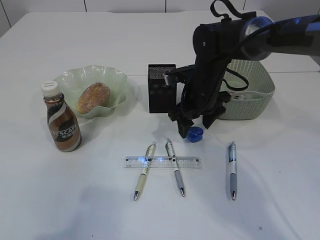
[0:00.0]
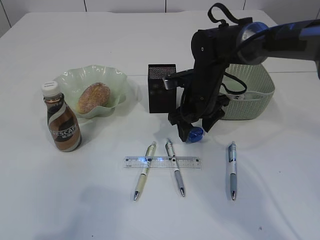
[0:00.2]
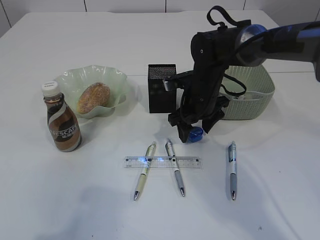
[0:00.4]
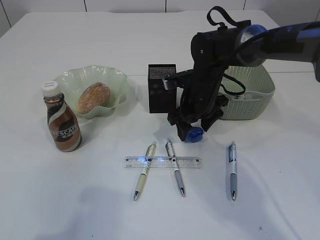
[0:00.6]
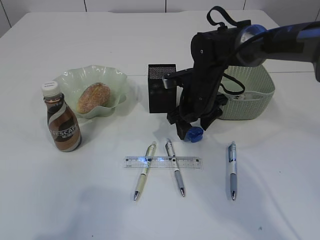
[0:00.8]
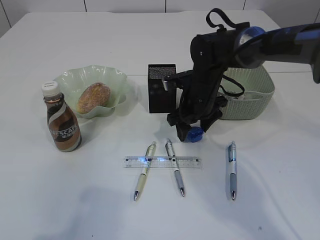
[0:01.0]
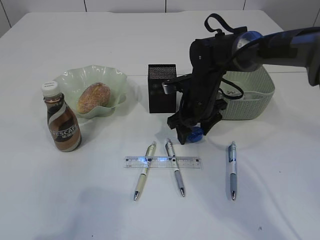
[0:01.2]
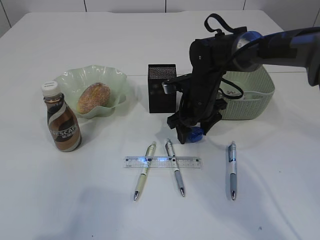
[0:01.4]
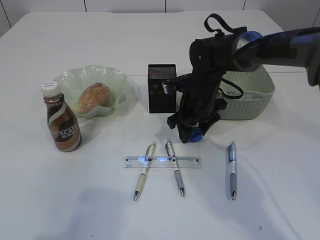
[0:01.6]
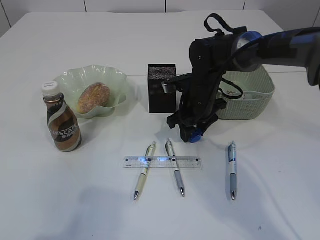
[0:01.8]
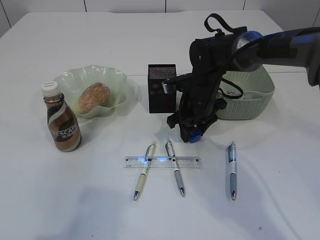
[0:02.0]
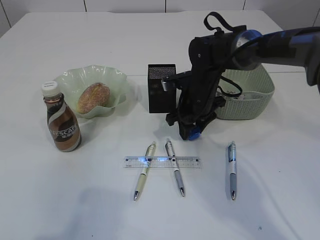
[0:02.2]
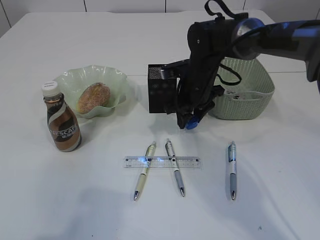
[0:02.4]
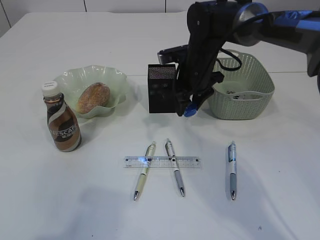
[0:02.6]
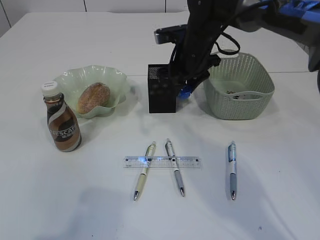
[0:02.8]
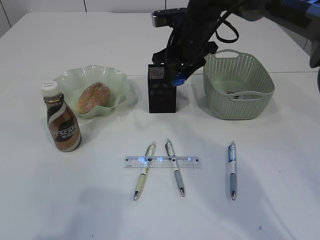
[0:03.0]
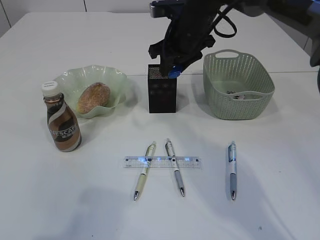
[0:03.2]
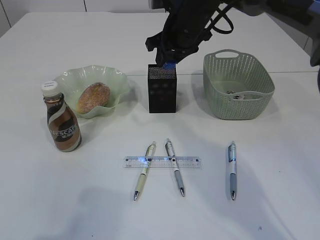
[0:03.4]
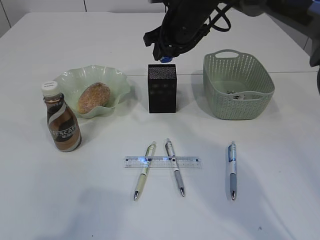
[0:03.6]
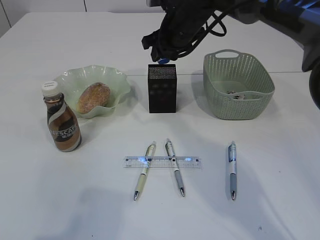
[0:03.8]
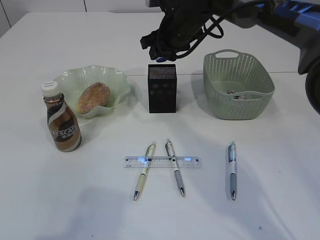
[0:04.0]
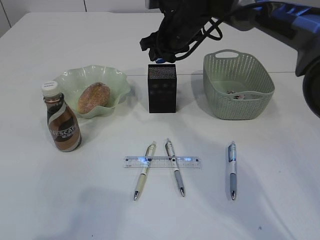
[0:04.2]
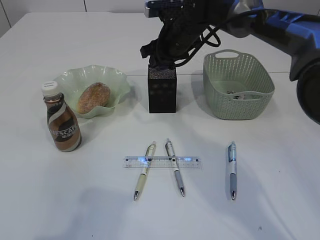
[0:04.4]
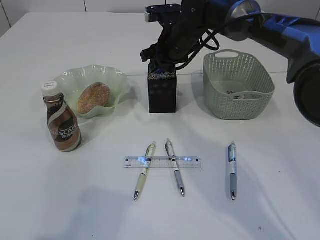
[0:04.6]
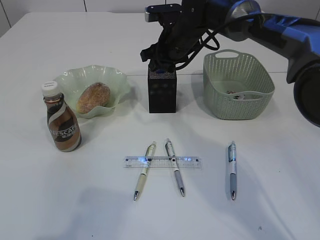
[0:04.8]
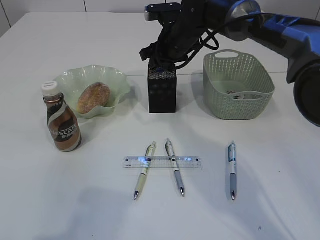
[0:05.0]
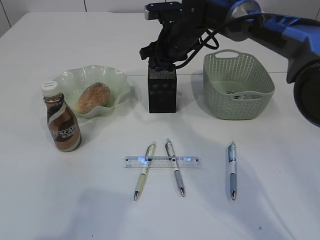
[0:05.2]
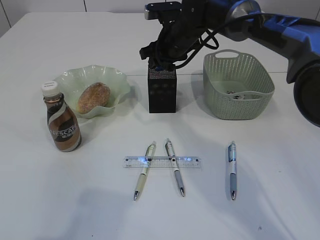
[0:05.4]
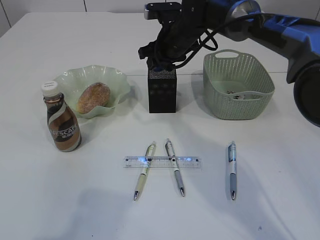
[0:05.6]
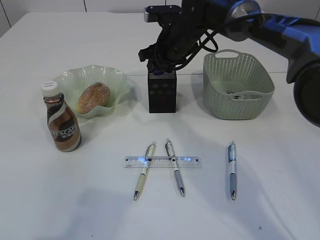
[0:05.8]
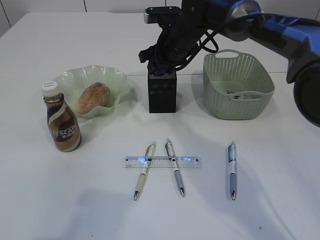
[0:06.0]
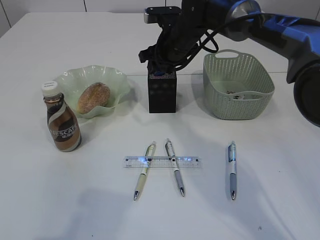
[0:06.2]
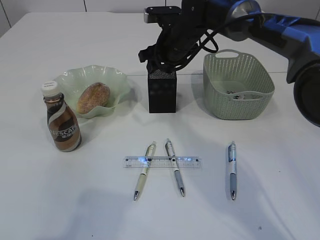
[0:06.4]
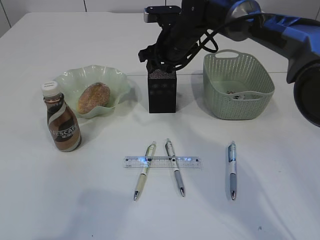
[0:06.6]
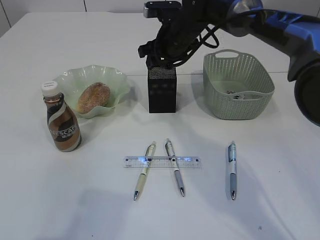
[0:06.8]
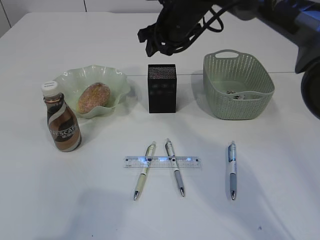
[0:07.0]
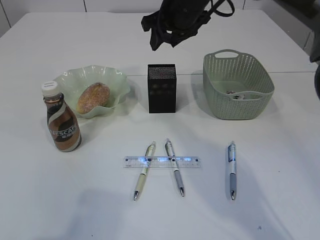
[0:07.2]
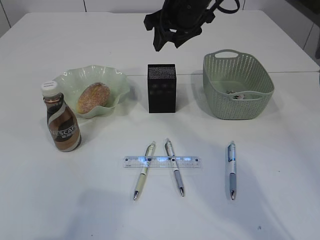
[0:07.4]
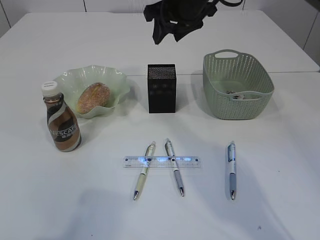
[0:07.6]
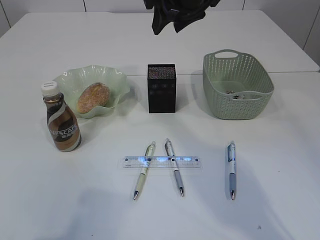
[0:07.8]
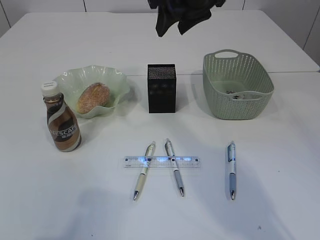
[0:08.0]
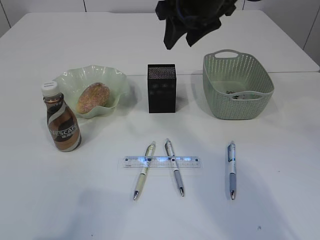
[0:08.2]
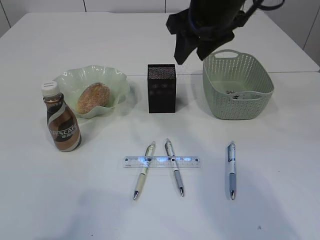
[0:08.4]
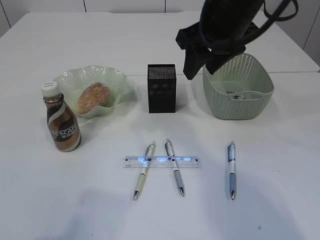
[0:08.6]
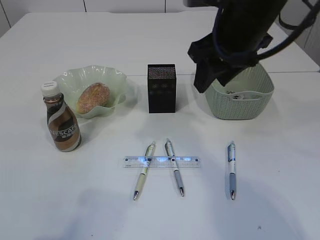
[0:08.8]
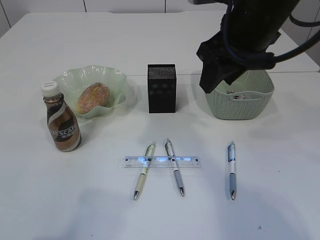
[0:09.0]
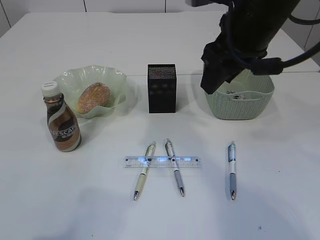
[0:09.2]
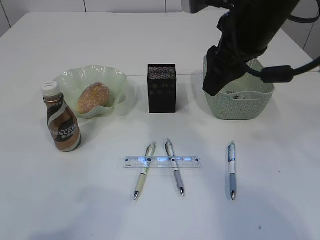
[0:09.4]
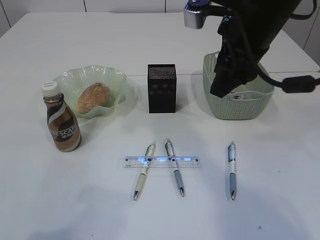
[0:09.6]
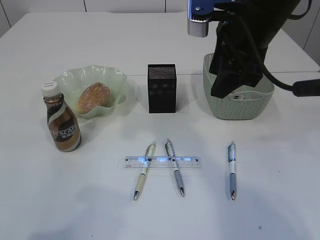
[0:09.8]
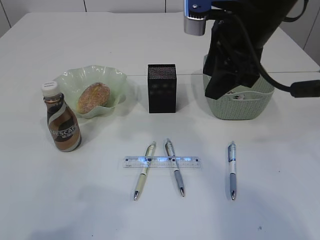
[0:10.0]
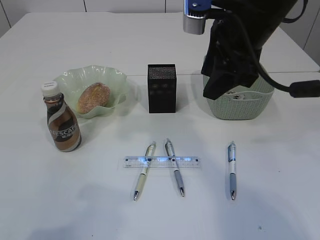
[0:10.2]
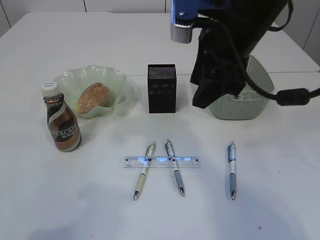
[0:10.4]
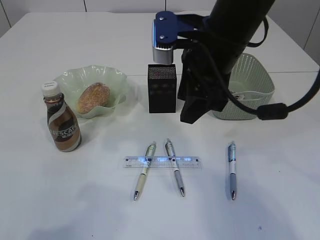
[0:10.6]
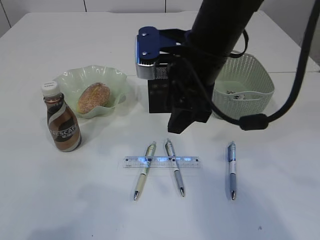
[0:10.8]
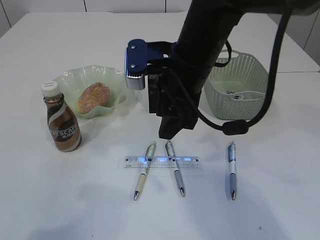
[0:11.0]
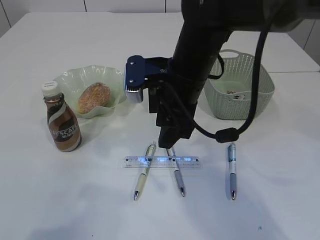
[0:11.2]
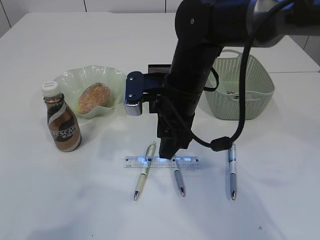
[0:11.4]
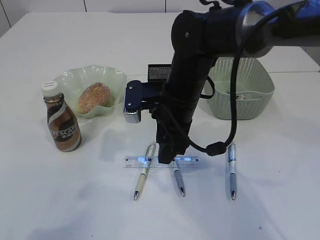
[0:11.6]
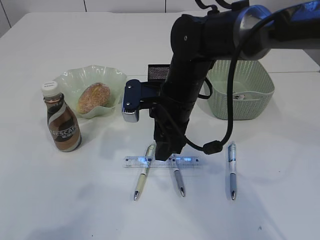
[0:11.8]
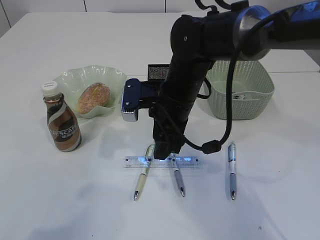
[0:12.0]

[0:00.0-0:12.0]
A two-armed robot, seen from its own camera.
Step, 0:00.0 to 0:02.6: Pick up the blue pencil sharpener.
Step, 0:00.0 to 0:07.2: Place the blue pencil sharpener into the pen holder.
0:00.0 to 0:01.6: The grippers make only small movements.
0:01.6 to 0:03.0: The right gripper travels upward by approximately 10 cm.
0:04.4 to 0:06.0: Both grippers stay put.
0:06.0 to 0:07.6: The right gripper travels upward by approximately 10 cm.
0:07.6 to 0:09.0: The right gripper heads backward, covering about 15 cm.
0:10.4 to 0:12.0: The right gripper heads downward and to the left, covering approximately 15 cm.

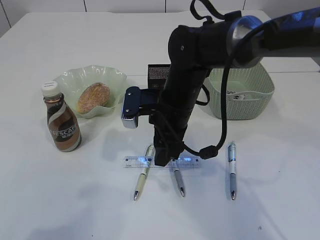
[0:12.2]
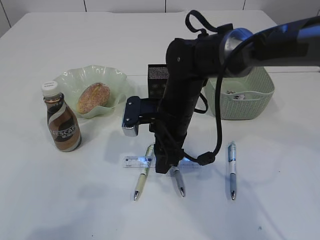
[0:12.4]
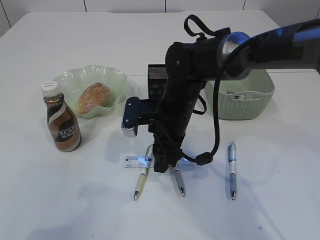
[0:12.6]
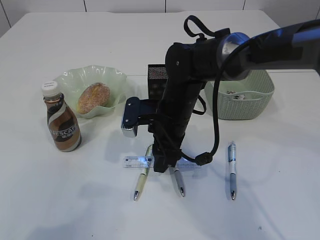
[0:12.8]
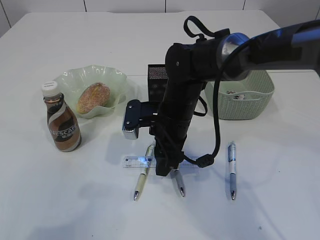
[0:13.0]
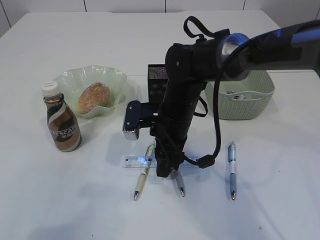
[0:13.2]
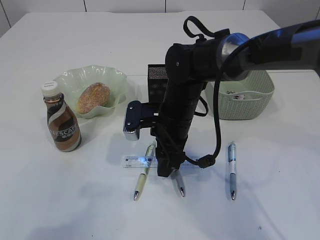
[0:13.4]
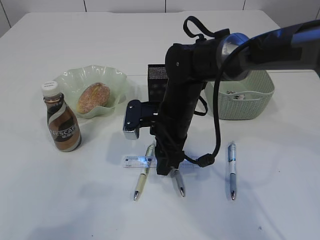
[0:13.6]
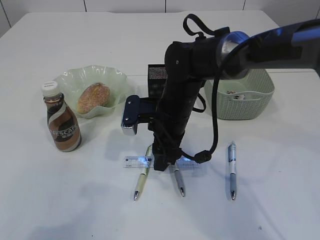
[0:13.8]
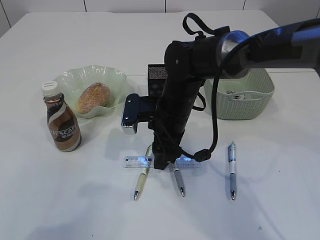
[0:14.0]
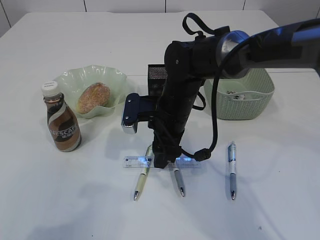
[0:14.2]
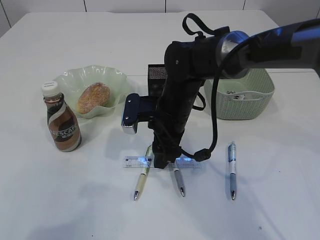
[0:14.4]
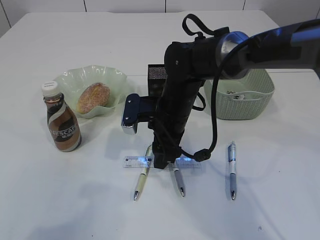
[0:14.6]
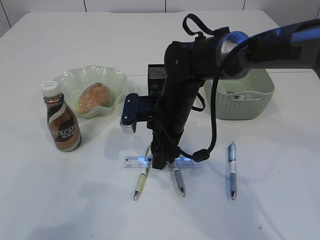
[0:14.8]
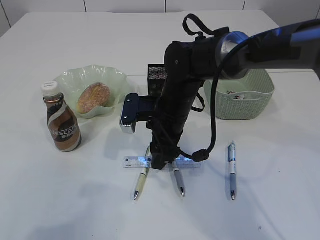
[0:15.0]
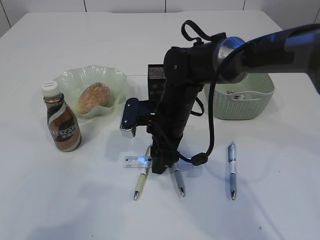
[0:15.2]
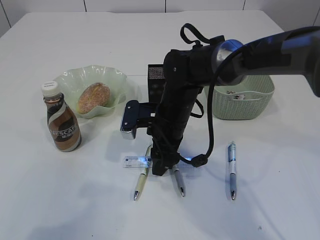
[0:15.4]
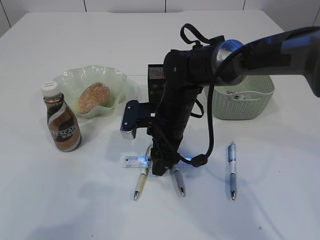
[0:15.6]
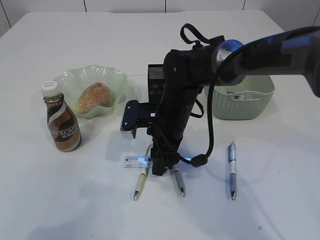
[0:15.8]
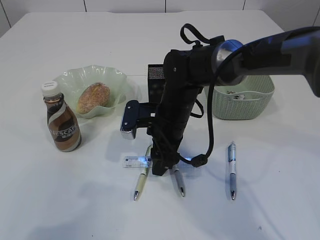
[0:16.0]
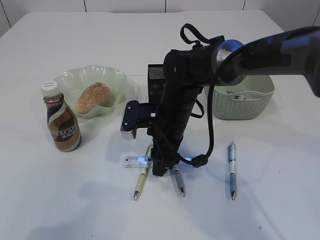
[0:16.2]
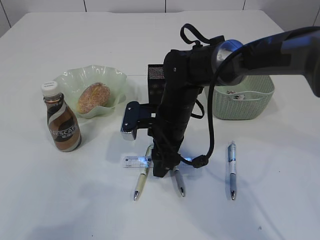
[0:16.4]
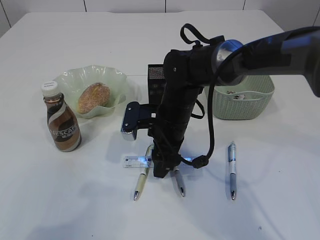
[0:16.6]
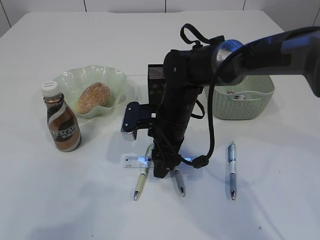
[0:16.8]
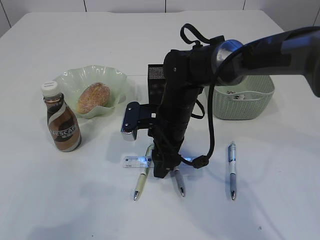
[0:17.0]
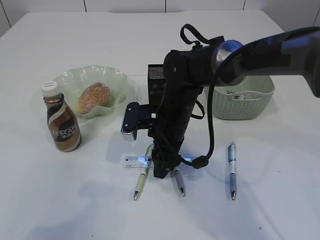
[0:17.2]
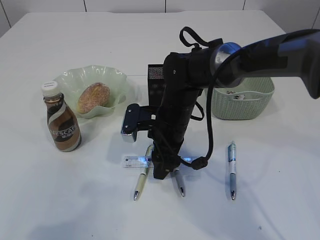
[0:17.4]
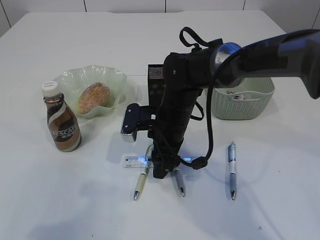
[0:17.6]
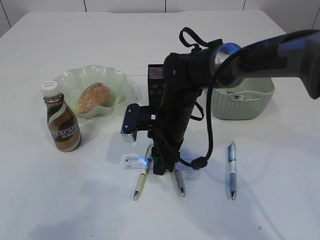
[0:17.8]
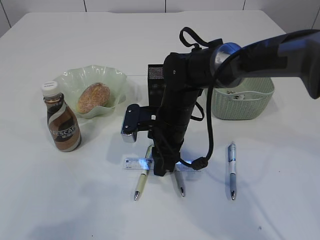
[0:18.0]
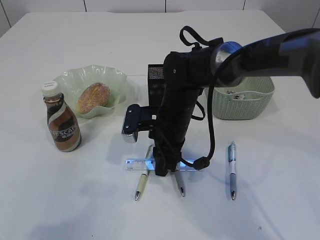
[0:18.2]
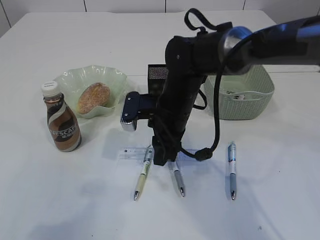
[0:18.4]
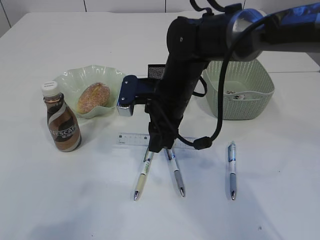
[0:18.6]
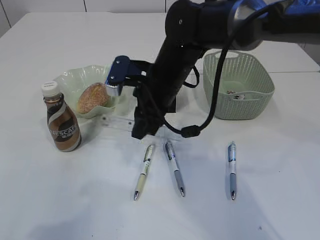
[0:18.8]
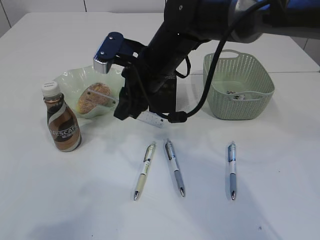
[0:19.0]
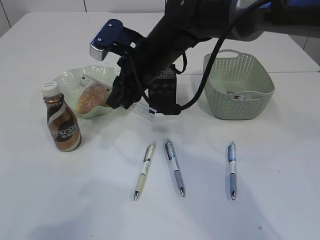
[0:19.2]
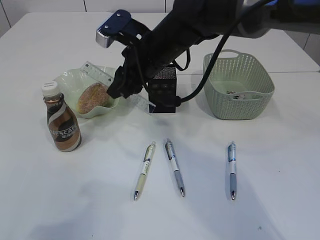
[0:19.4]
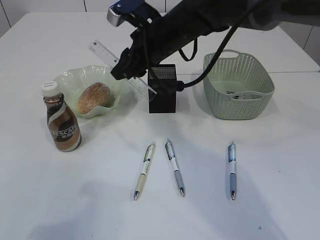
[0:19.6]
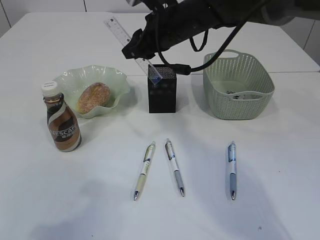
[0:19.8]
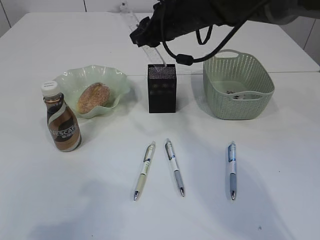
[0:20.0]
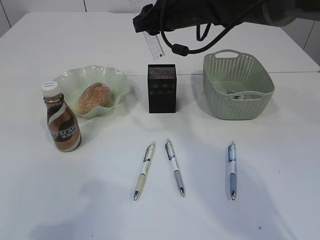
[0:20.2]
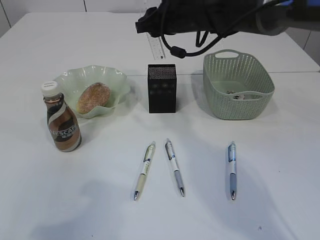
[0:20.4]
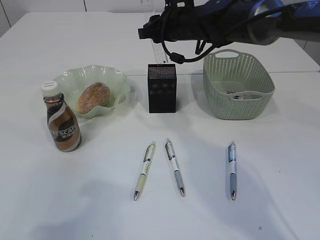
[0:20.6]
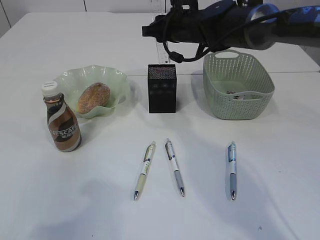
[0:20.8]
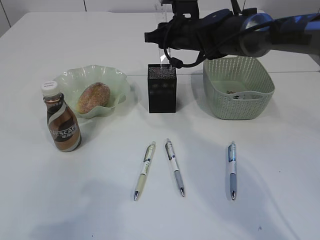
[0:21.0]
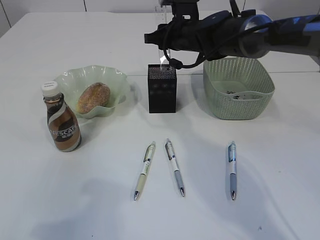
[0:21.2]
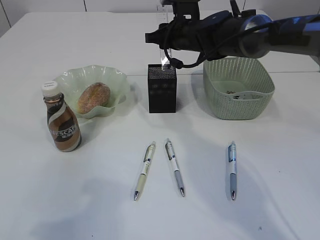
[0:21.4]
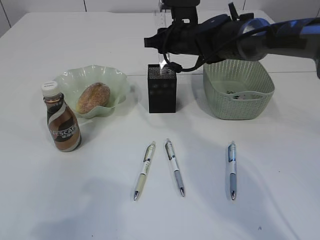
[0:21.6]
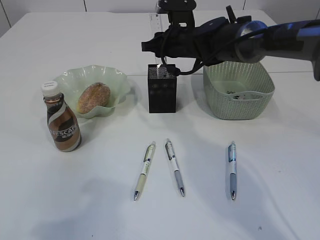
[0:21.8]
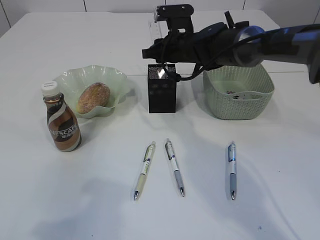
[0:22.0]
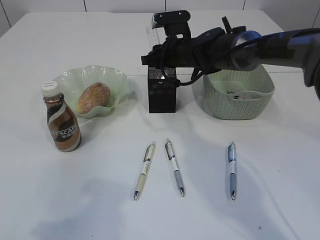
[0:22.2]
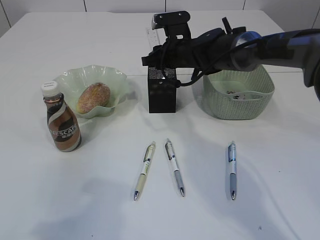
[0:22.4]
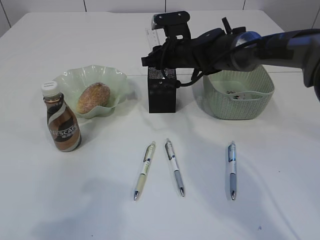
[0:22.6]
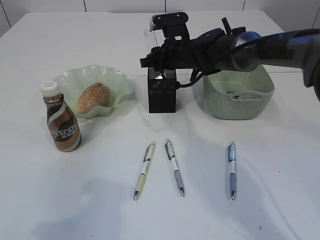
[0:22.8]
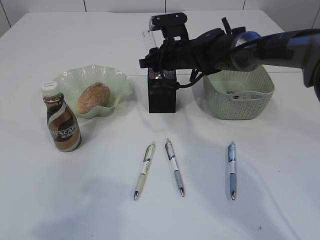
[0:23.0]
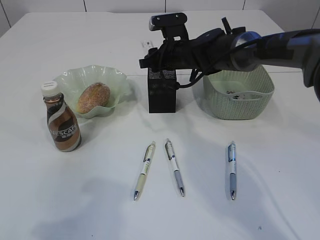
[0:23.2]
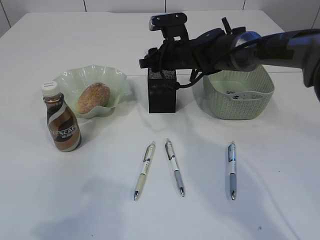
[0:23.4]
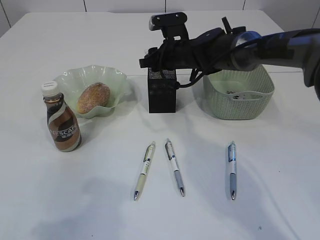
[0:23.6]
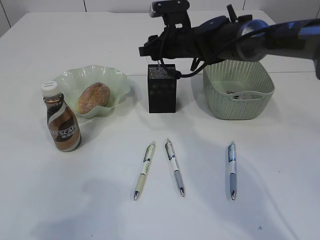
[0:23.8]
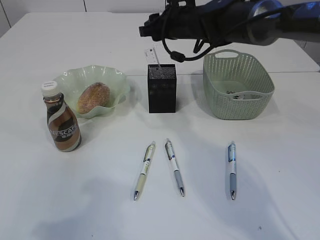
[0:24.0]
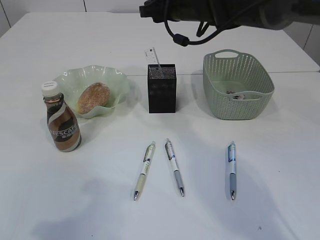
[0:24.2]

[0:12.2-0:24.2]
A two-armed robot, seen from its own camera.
Step, 0:12.2 to 0:18.8: pick up the ruler.
Step, 0:19.0 to 0:24.0: Place the ruler into the pen holder.
0:12.2 to 0:13.8: The grippers move only a little.
0:13.8 to 0:15.2: Both grippers stay put.
0:15.2 to 0:16.6: Both grippers stay about where they are.
0:16.6 to 0:18.2: The right gripper closes up.
0:18.2 to 0:19.8: The right gripper travels upward and forward by approximately 15 cm.
0:19.8 to 0:21.2: The right gripper heads forward, covering some 5 cm.
0:21.2 to 0:22.6: The grippers move only a little.
0:22.6 to 0:24.2: The right gripper travels upward by about 10 cm.
